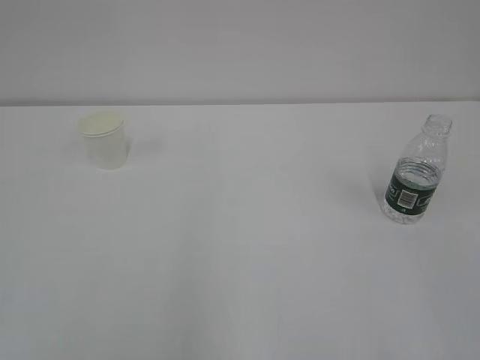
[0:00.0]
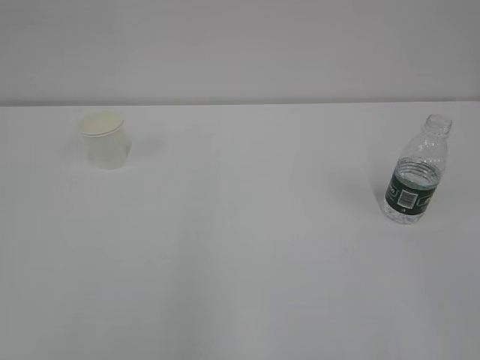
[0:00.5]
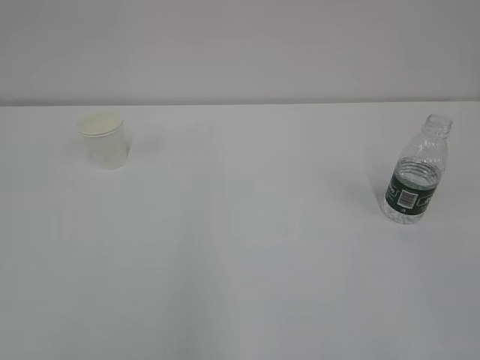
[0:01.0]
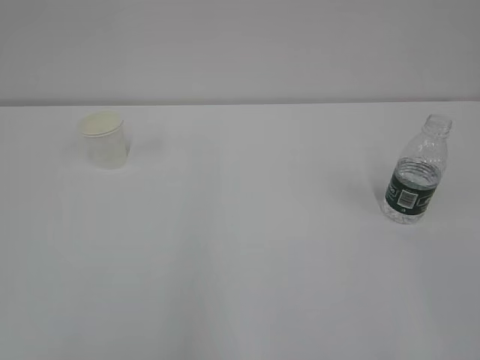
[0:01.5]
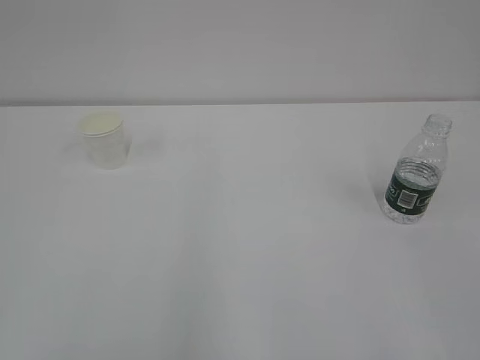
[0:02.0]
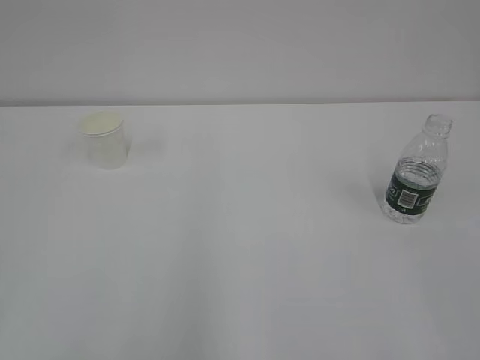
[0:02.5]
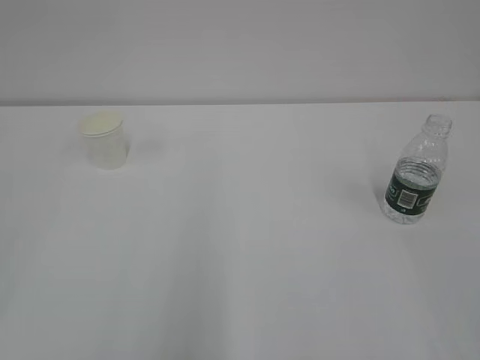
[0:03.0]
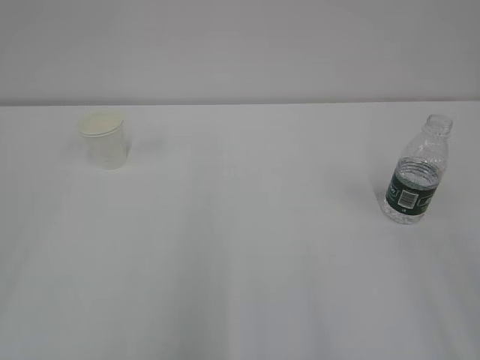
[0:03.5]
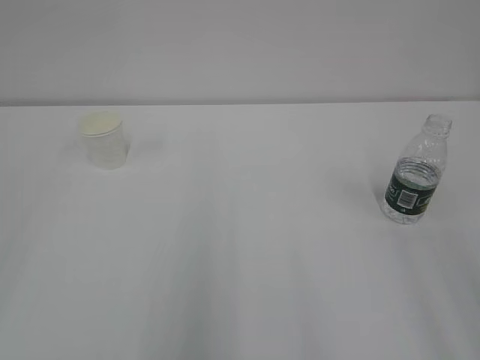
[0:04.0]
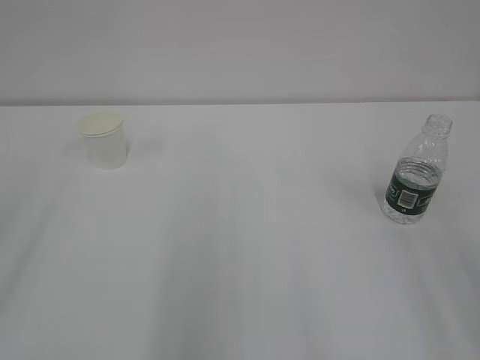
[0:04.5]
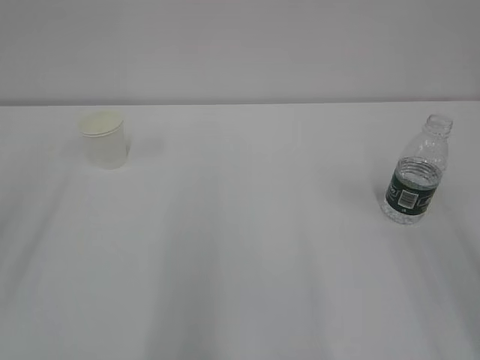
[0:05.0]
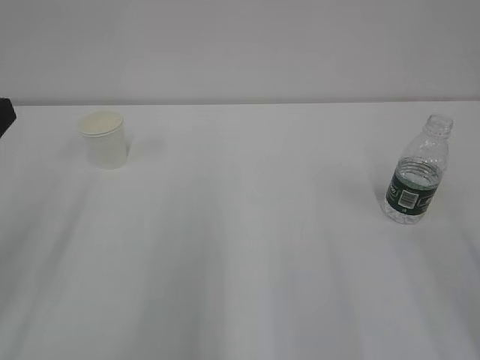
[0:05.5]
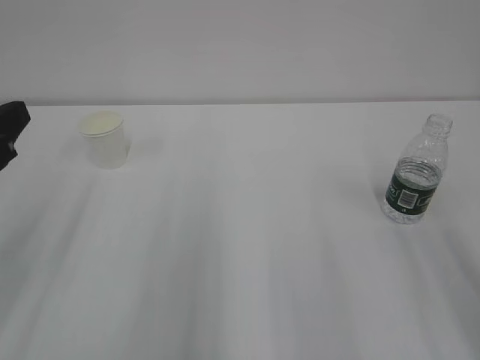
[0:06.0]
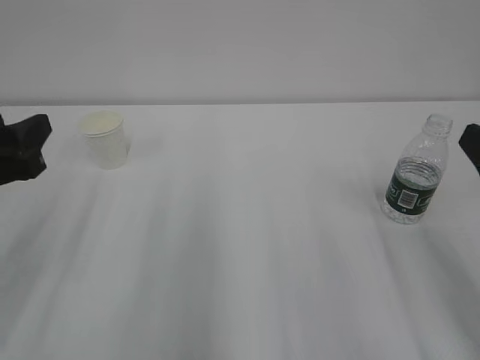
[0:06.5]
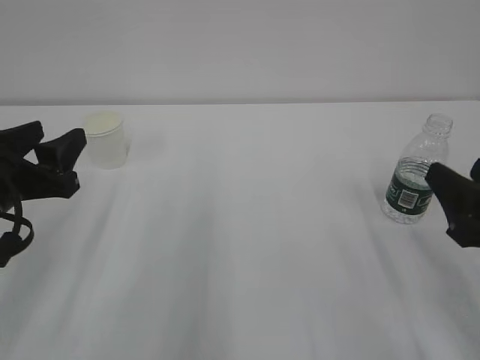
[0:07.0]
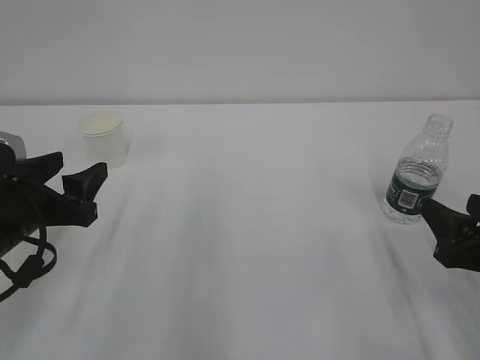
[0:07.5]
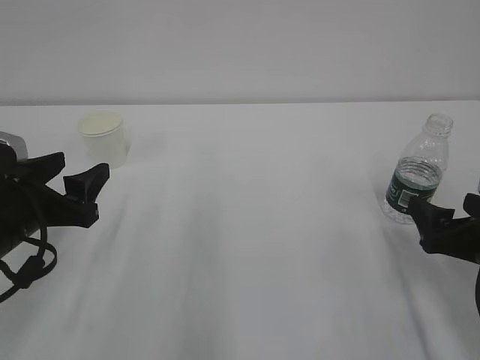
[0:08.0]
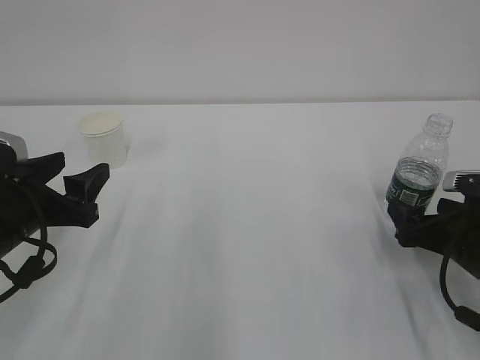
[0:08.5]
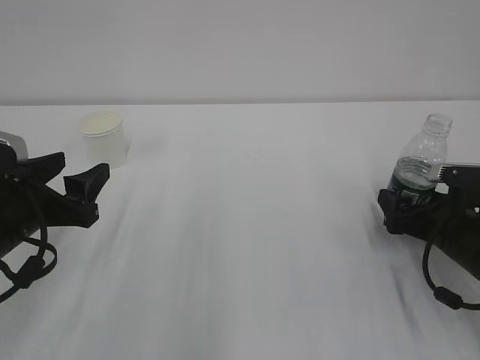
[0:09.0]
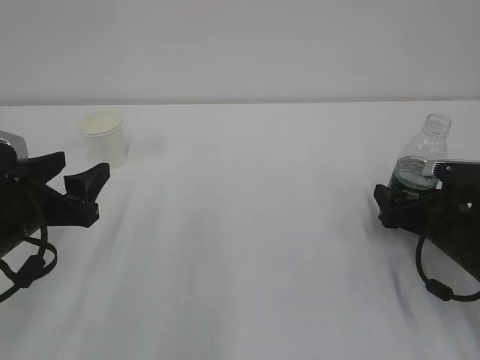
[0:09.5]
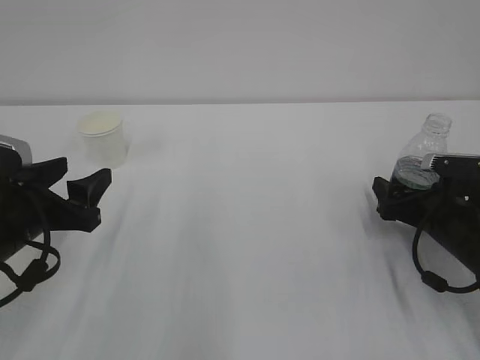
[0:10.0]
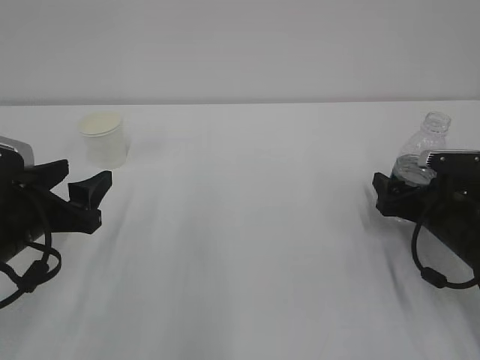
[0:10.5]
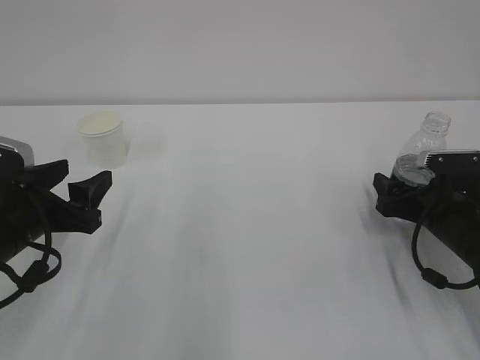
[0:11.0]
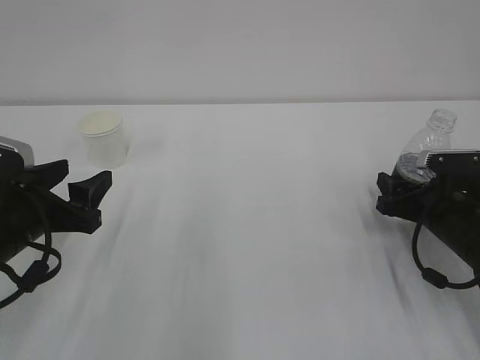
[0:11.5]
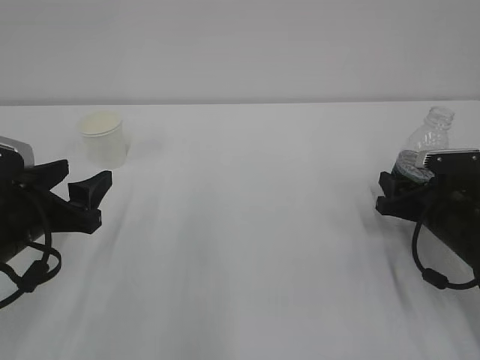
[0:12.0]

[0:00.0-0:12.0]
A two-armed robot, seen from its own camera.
0:04.0 to 0:06.0: The left gripper goes approximately 15 cm forward and downward.
0:06.0 to 0:08.0: The right gripper heads downward and forward, covering about 15 cm, and opens. The left gripper is displaced downward by about 10 cm.
0:08.0 to 0:10.0: The right gripper heads forward and downward, covering about 10 cm.
0:10.0 to 0:12.0: The right gripper closes up.

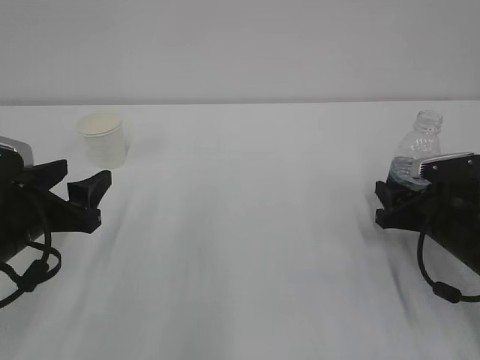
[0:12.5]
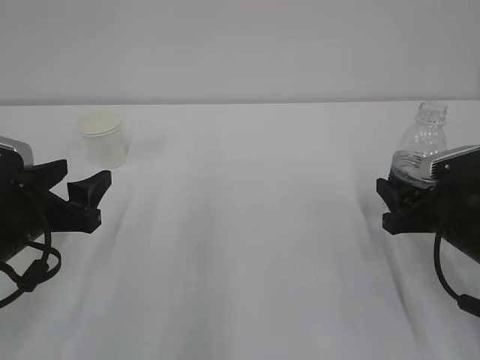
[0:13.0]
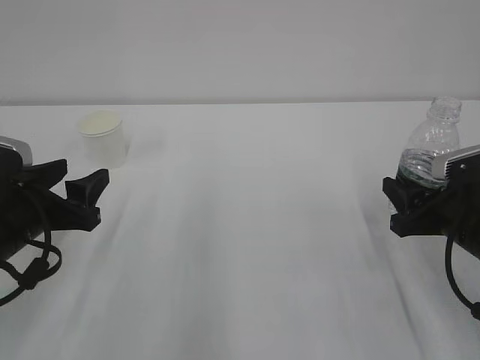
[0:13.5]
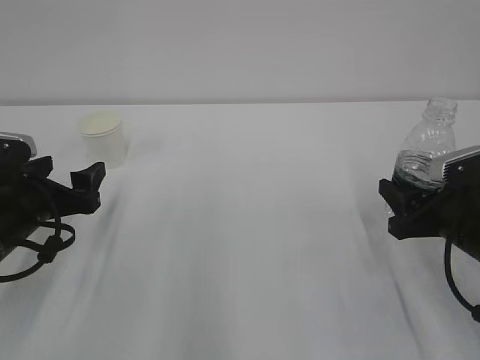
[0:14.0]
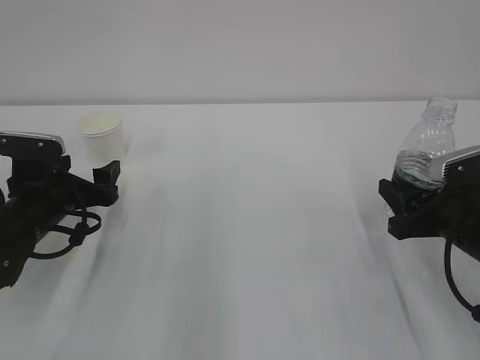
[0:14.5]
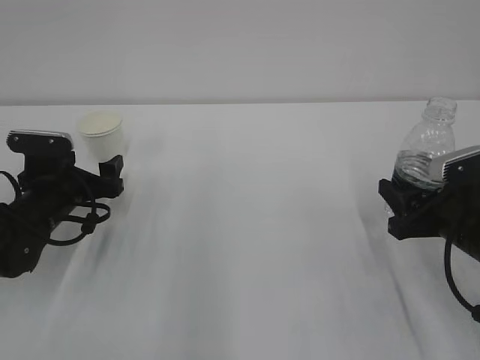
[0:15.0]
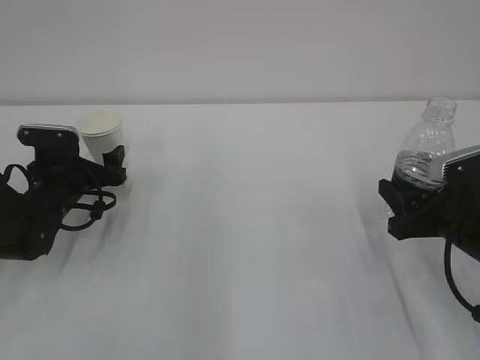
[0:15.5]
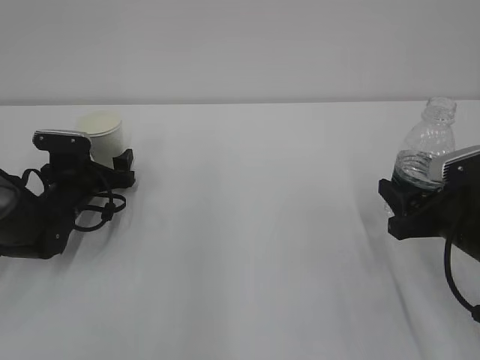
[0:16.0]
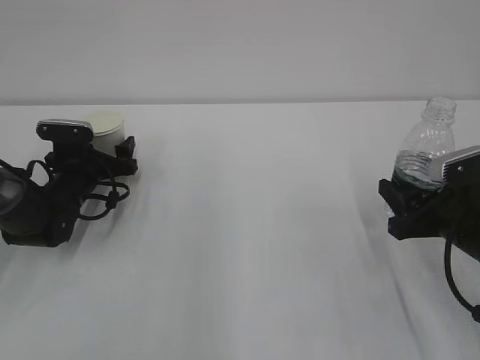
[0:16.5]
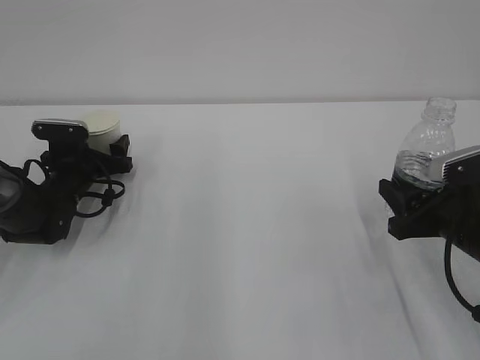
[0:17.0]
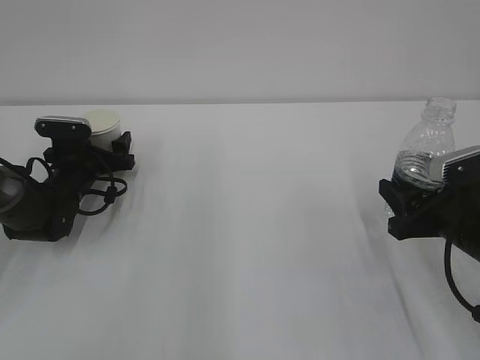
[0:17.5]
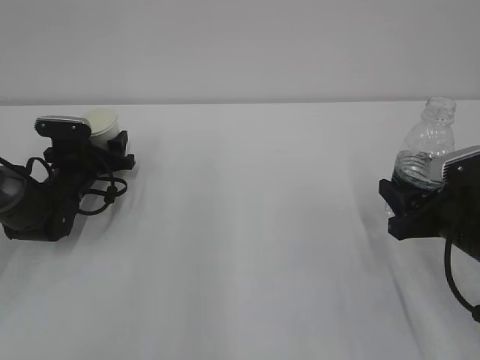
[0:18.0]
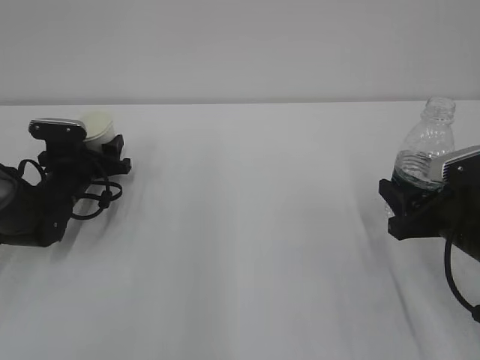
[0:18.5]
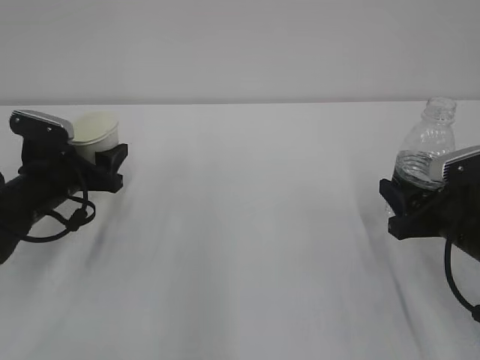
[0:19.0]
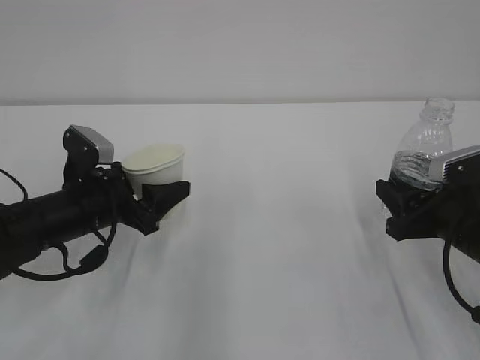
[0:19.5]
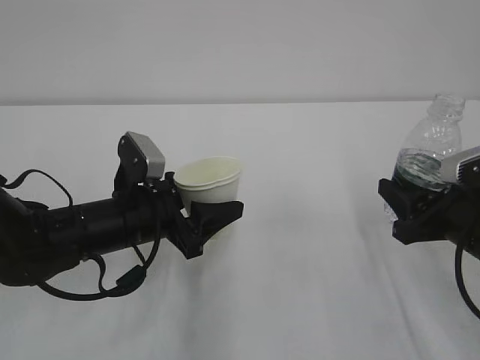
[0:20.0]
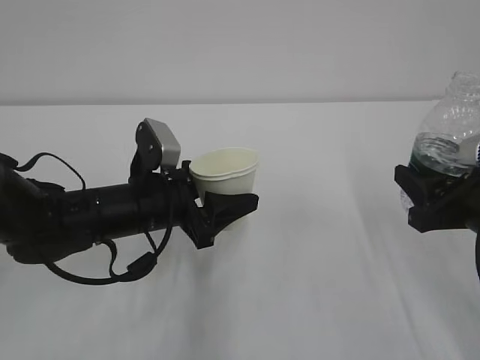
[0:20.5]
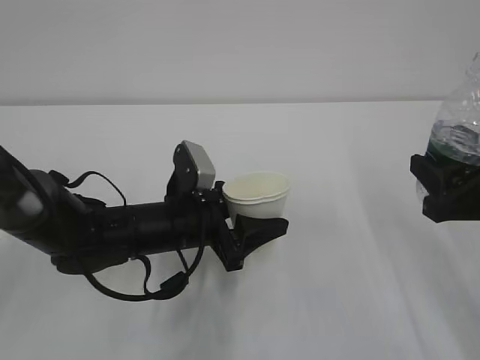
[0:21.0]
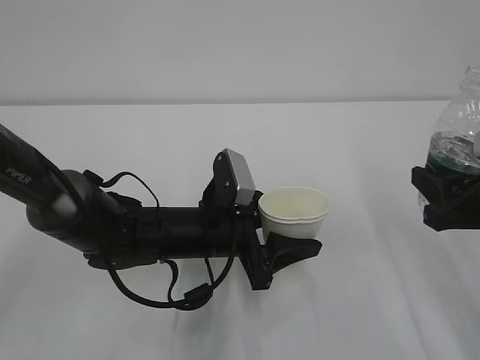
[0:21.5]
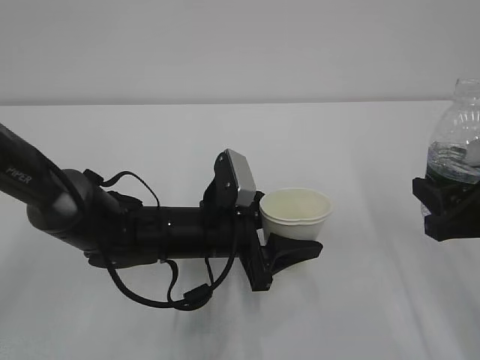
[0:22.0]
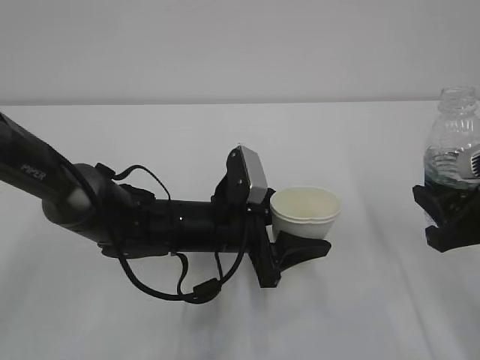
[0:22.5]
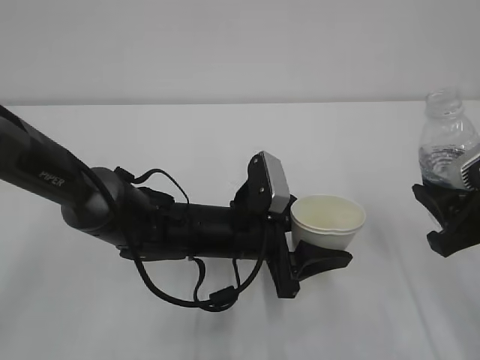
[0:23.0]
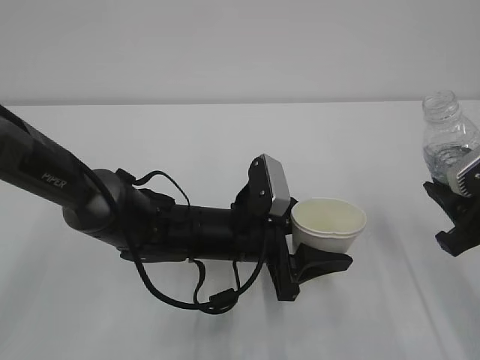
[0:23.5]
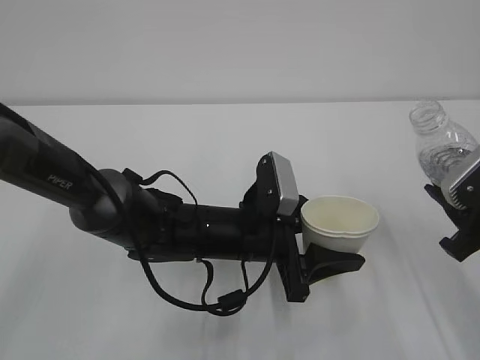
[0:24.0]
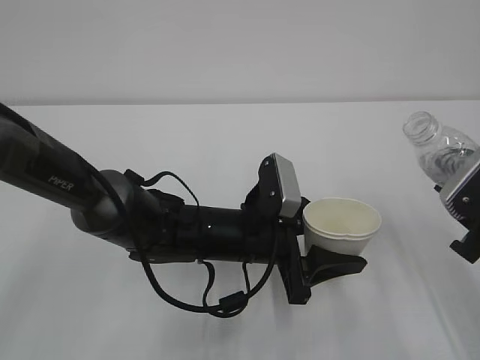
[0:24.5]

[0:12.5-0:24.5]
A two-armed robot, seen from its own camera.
0:12.5 to 0:14.5: The left gripper shifts some 10 cm forward, and opens up. Meanwhile the right gripper shifts by about 5 cm.
0:14.5 to 0:16.5: The left gripper shifts approximately 10 cm forward.
0:16.5 to 0:18.5: The left gripper closes its fingers.
0:18.5 to 0:20.5: The right gripper moves about 5 cm; the left gripper moves to the right, backward and upward, about 20 cm.
0:20.5 to 0:22.5: The left gripper is displaced to the right by some 10 cm.

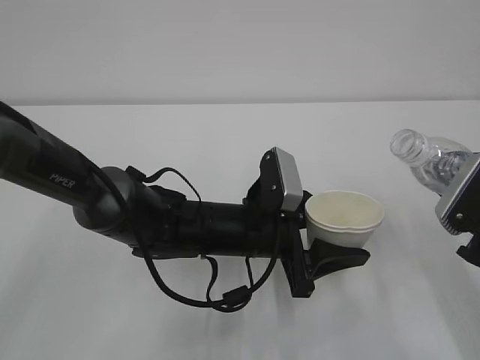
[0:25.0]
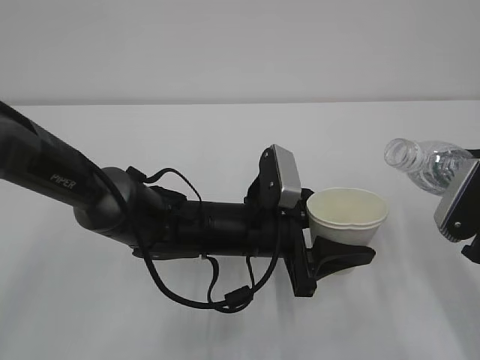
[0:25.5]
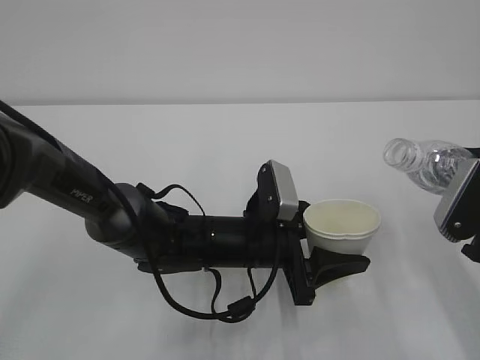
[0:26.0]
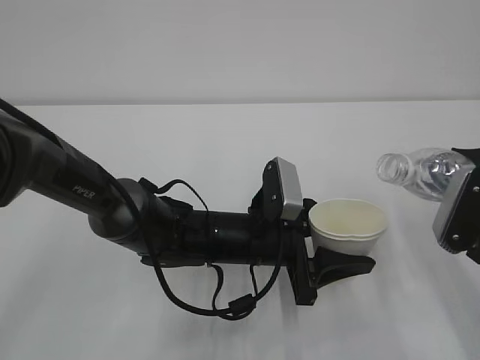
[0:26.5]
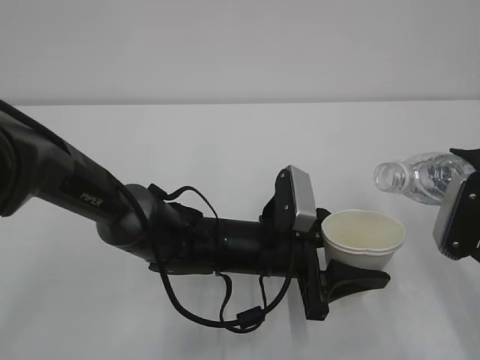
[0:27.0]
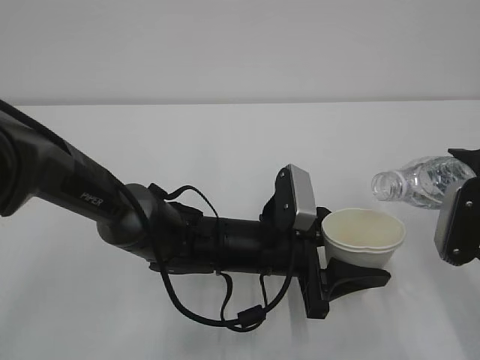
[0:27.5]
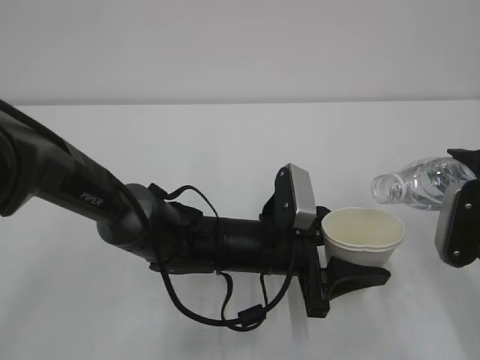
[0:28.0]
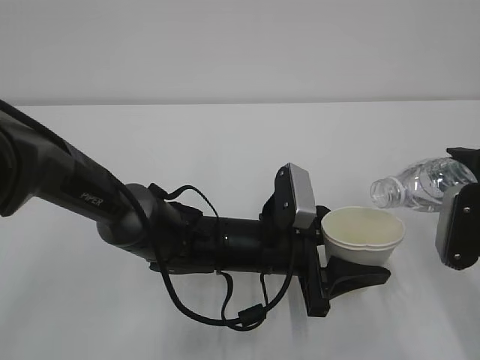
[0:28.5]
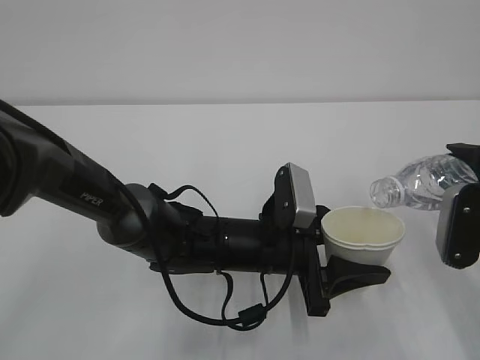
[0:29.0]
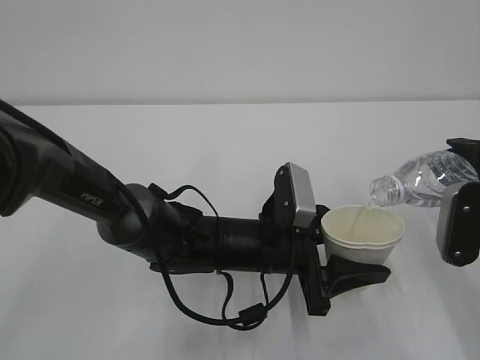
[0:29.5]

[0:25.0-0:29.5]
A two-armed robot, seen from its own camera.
0:25.0 to 0:27.0: There are only small adjustments of the grippers.
0:27.0 to 0:29.5: The grippers move only a little.
